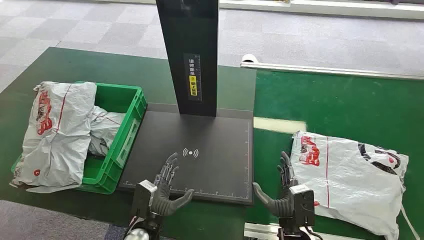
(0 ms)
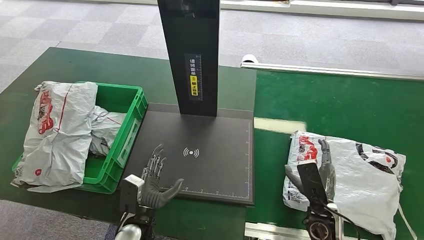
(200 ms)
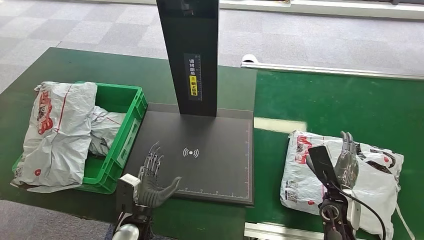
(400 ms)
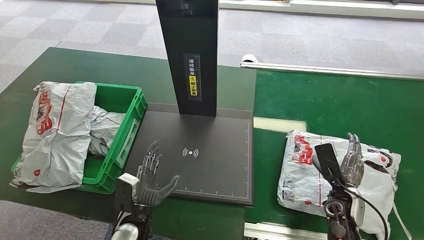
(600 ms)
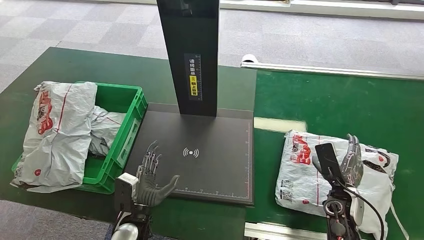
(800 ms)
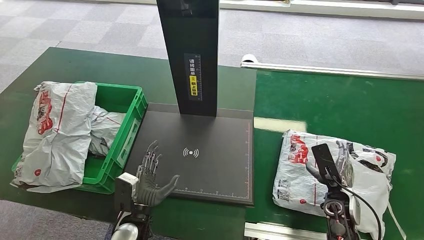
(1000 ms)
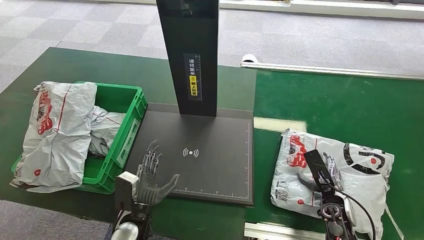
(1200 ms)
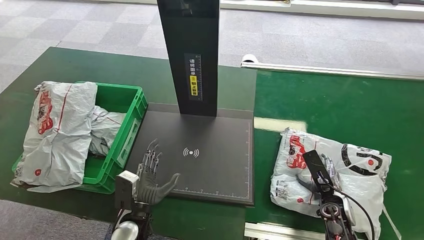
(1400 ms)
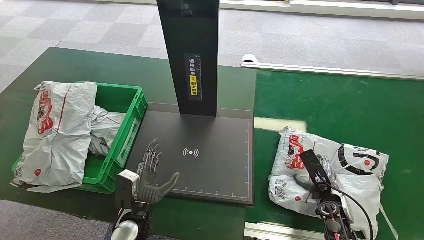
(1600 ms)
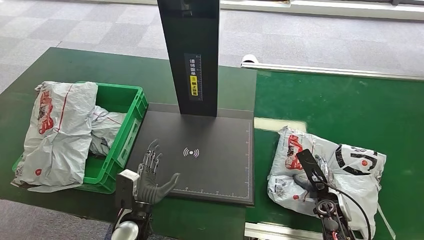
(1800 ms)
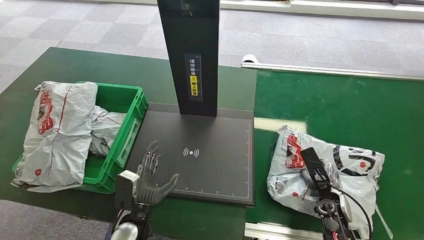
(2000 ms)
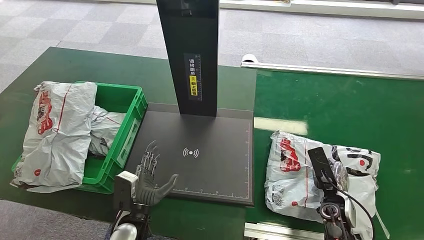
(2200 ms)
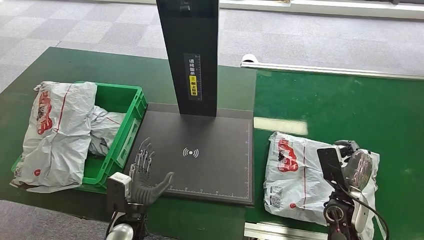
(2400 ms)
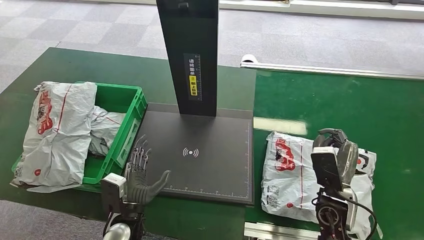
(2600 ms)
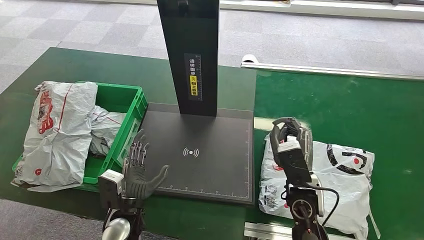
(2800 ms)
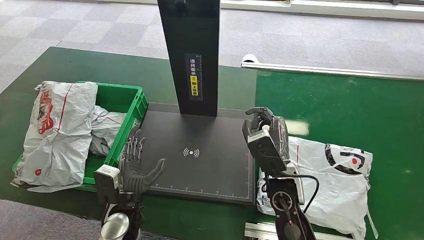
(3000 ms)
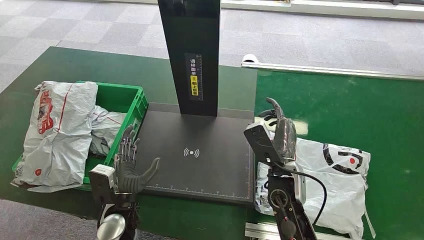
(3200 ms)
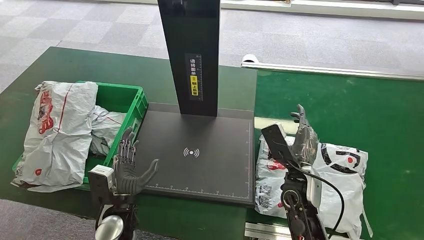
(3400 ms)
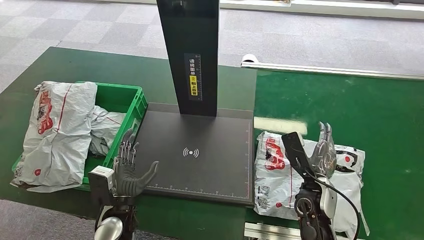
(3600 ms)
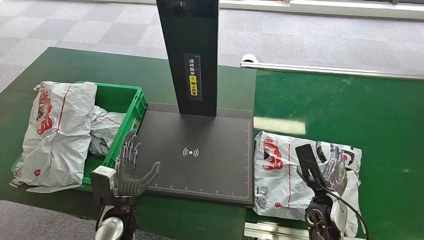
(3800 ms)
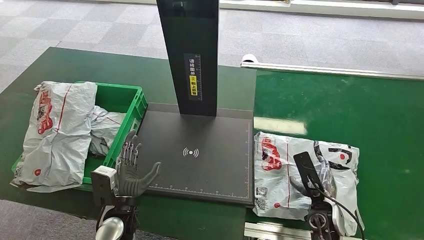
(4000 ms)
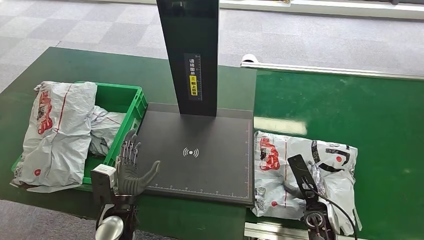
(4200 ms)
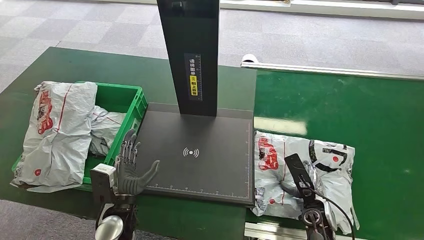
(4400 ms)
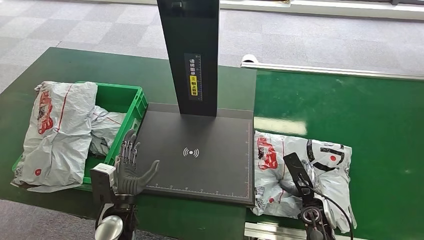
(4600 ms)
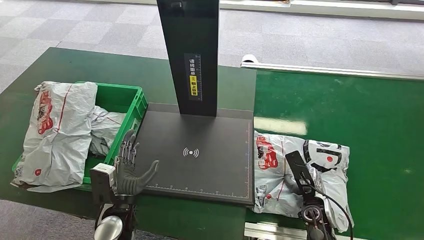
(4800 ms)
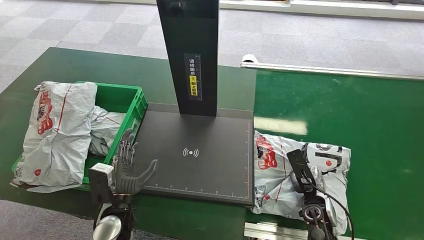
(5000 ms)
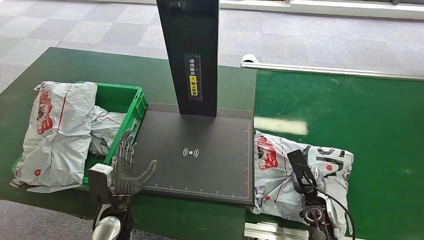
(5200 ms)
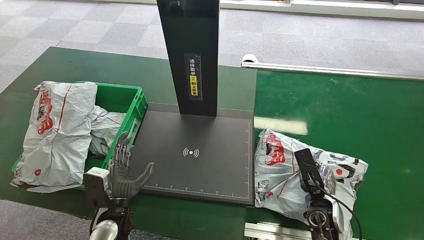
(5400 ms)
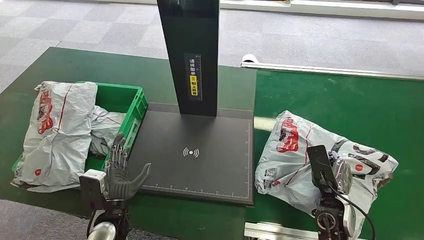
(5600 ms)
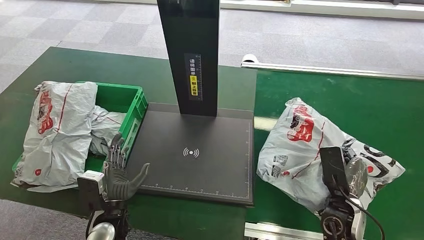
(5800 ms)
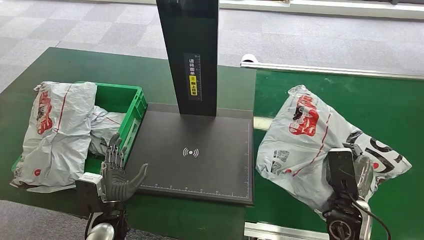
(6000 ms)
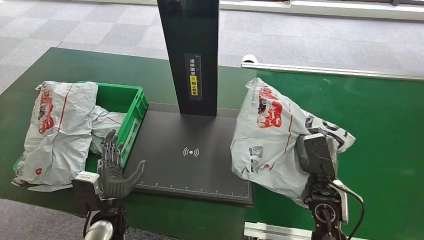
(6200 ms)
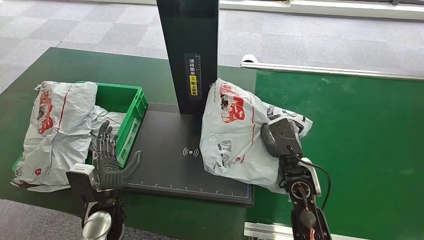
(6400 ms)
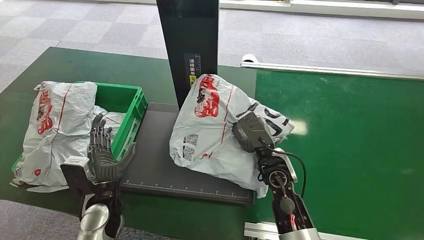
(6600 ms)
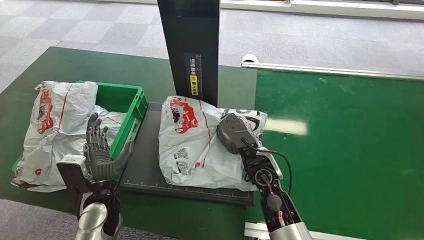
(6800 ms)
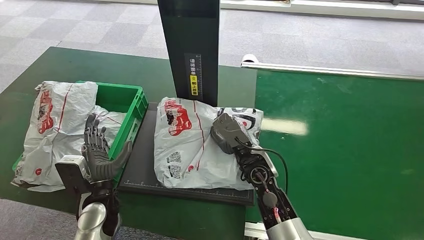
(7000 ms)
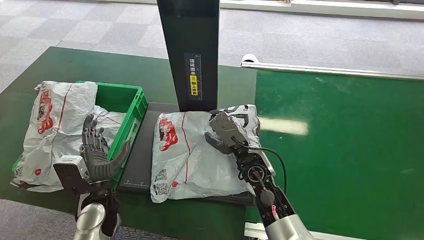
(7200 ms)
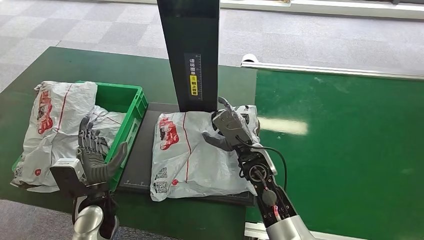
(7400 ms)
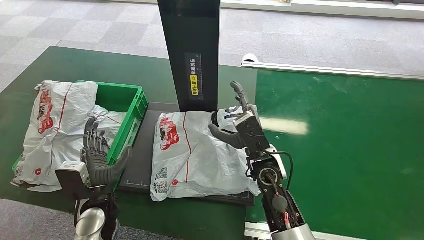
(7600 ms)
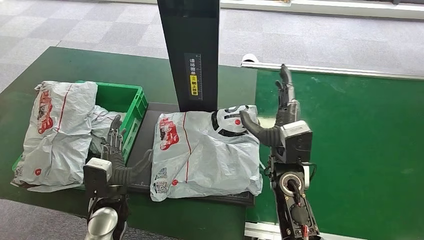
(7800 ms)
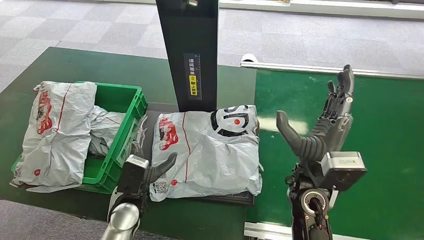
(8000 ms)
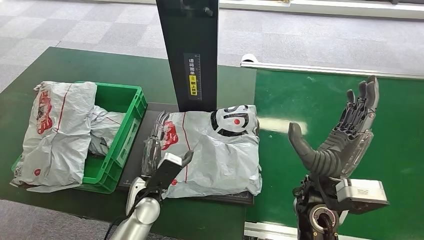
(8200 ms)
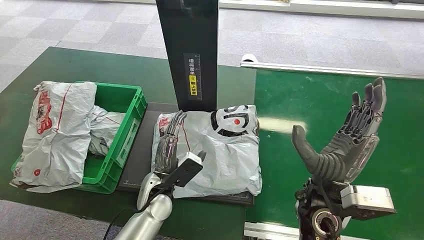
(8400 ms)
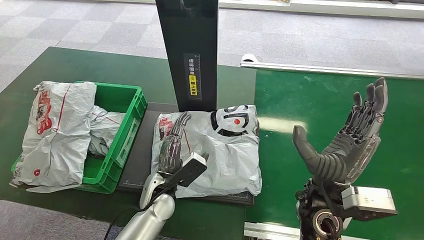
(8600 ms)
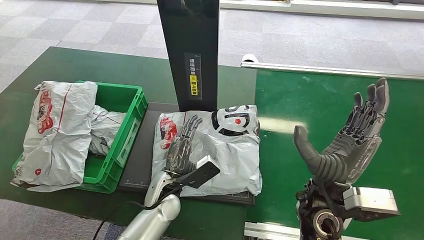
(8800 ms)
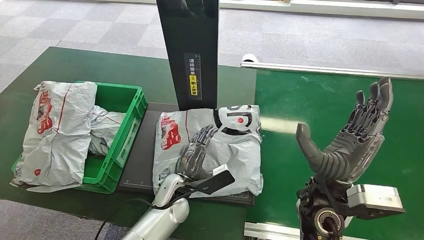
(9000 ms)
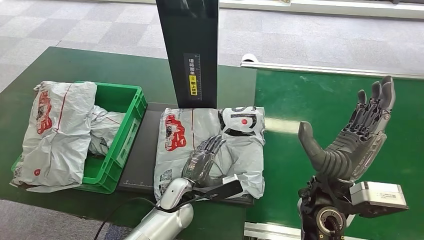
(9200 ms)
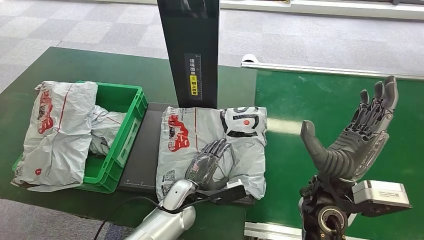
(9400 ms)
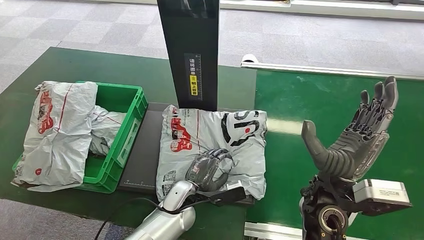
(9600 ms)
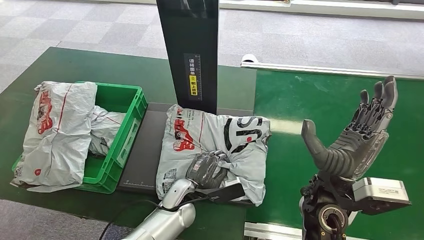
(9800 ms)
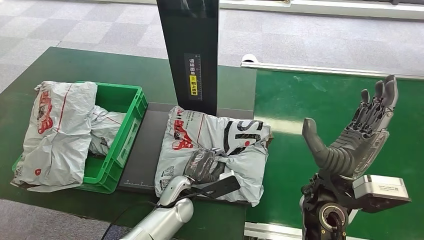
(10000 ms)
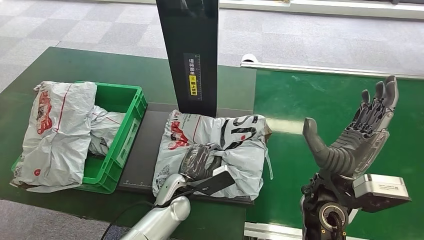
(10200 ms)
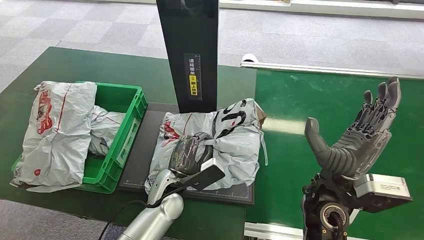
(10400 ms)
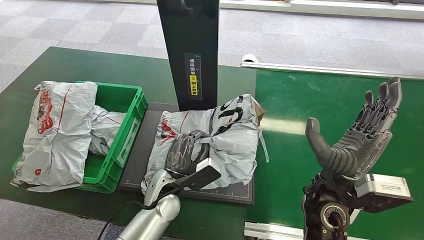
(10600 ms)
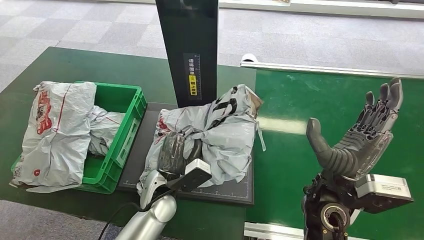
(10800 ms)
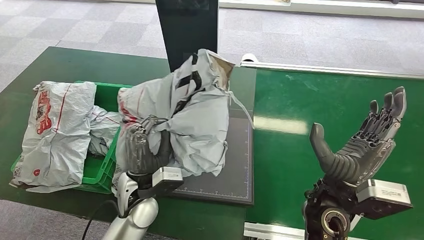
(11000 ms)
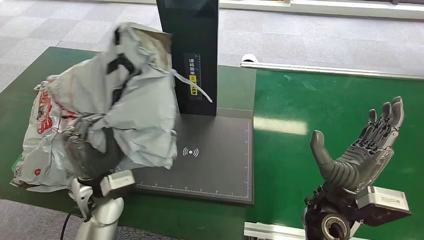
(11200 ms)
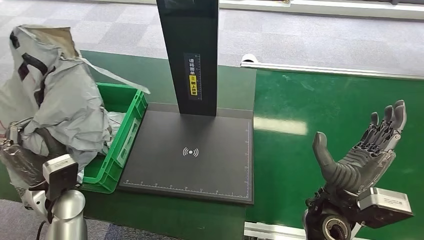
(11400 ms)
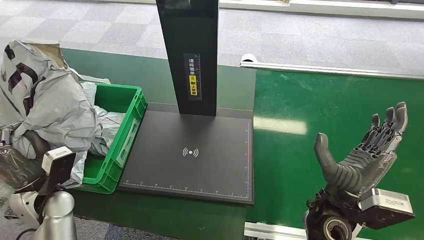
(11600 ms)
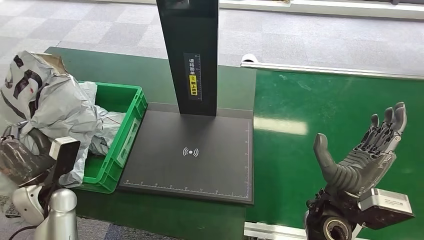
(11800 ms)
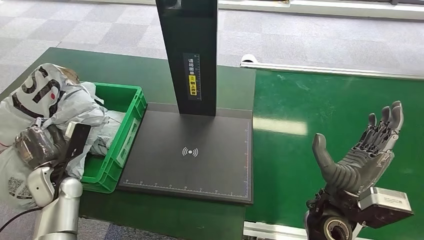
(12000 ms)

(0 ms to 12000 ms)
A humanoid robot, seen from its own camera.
Task of the whole recording: Weigh the package on the weighing device and place it in the left basket.
Step, 0 ms - 6000 ms: Pick up the package from the conveyor belt.
Step, 6400 ms - 7800 ms: Place the package onto the inbound machine.
Step, 8000 ms - 11000 ms: Pick up the package from the inbound machine.
1600 ms - 3000 ms: The right hand goes about 25 cm to the left and upward.
3000 ms - 4400 ms: The right hand goes about 20 cm downward and to the right.
4400 ms - 6000 ms: The right hand goes approximately 10 cm upward.
7600 ms - 9000 ms: The left hand heads to the right, covering some 15 cm. Meanwhile the right hand goes roughly 15 cm backward, to the right and upward.
9000 ms - 10400 ms: The hands move only a little.

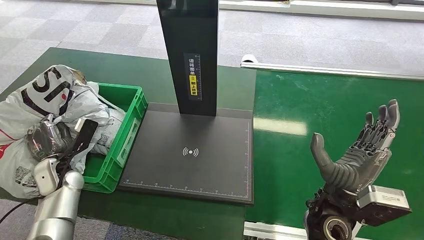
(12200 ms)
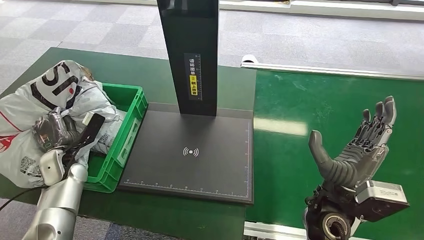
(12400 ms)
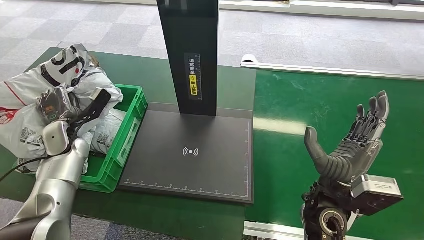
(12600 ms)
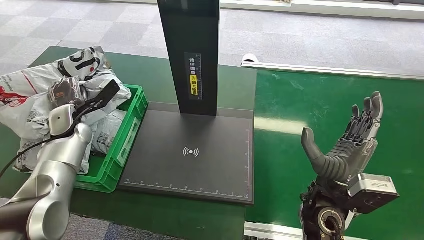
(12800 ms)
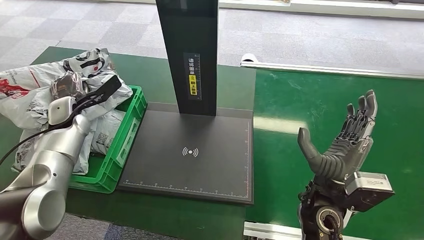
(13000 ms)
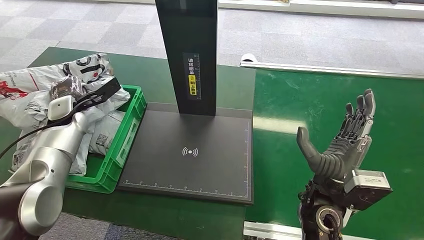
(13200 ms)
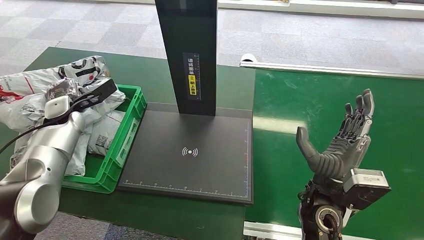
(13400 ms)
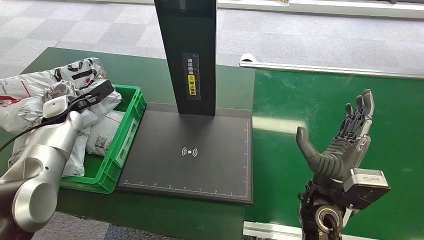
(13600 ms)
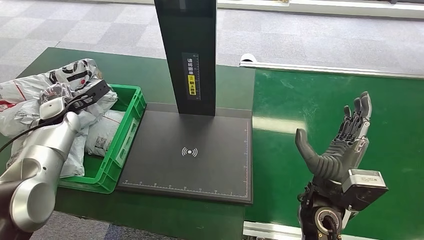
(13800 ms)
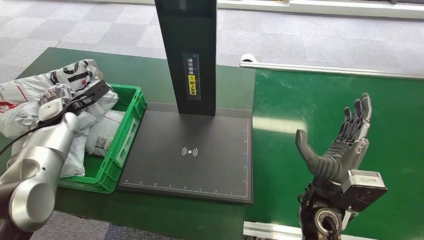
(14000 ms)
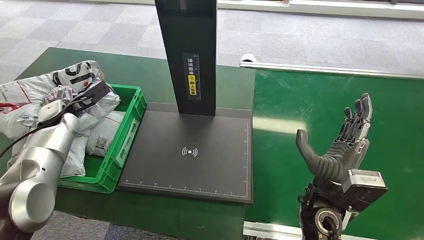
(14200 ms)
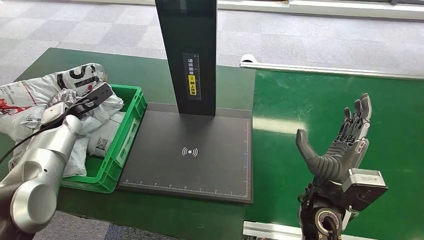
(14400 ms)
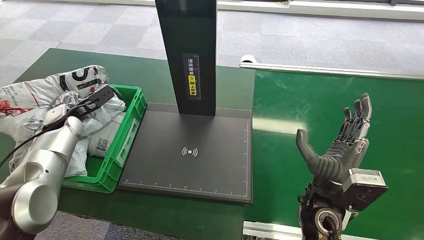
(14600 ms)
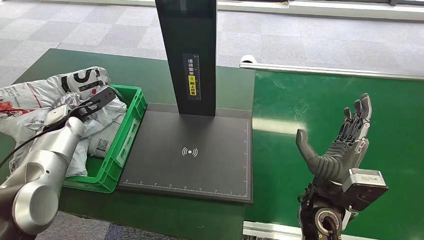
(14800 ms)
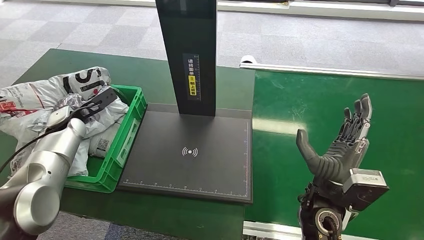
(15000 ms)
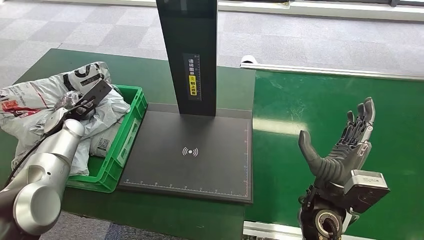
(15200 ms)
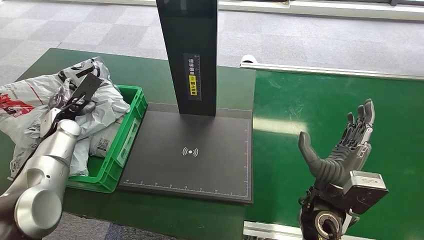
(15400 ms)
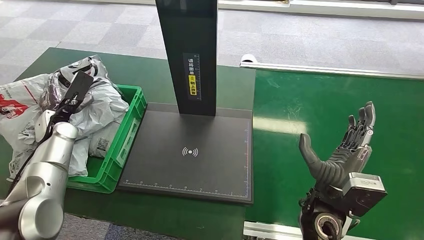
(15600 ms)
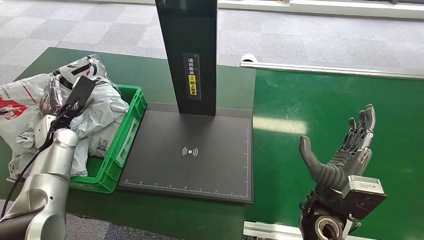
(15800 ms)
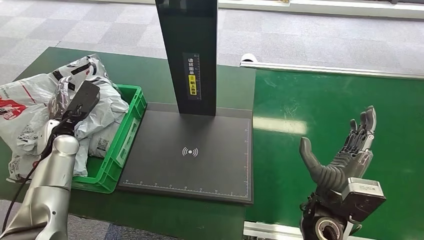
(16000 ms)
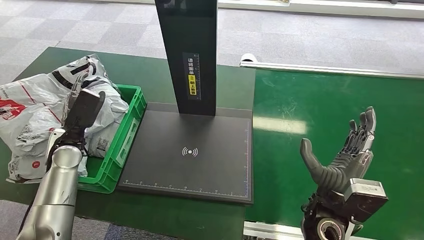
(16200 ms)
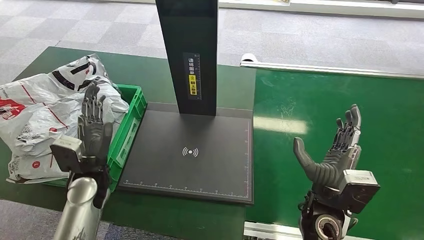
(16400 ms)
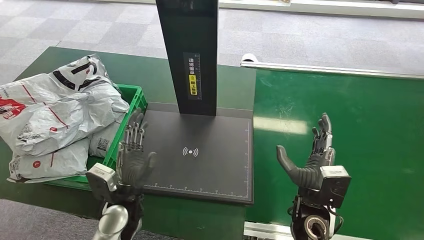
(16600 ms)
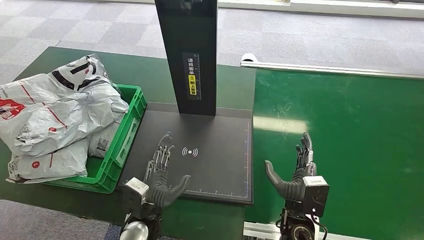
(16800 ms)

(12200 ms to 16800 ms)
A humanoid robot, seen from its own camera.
Task of the whole recording: Weigh the package on the weighing device and place it in the left basket.
Step, 12200 ms - 16800 ms: Place the package into the parcel locker.
